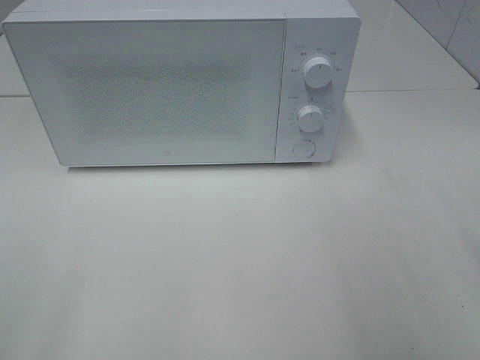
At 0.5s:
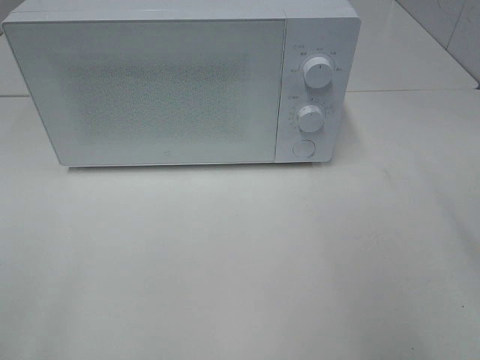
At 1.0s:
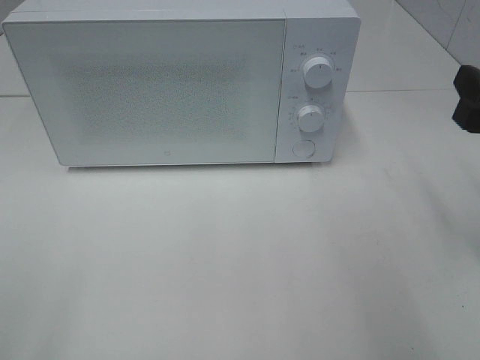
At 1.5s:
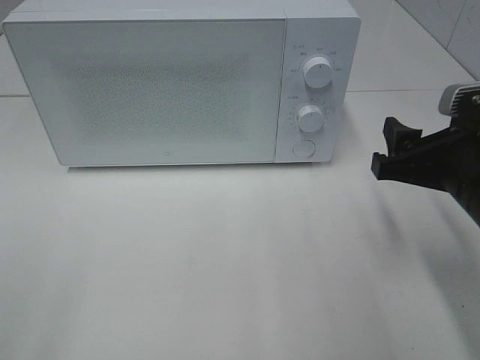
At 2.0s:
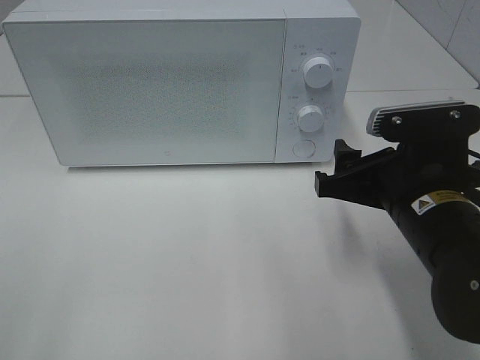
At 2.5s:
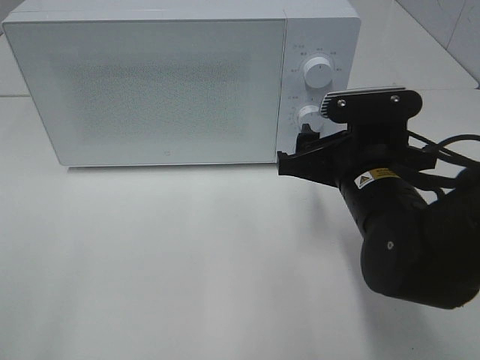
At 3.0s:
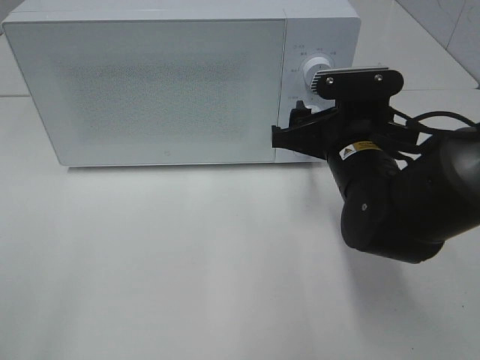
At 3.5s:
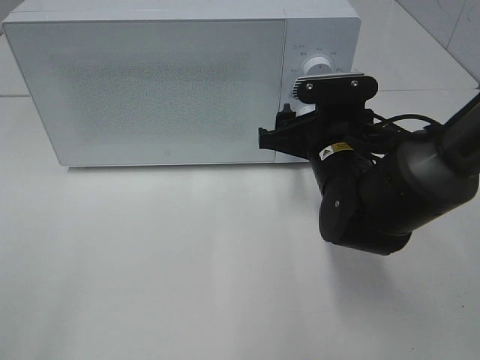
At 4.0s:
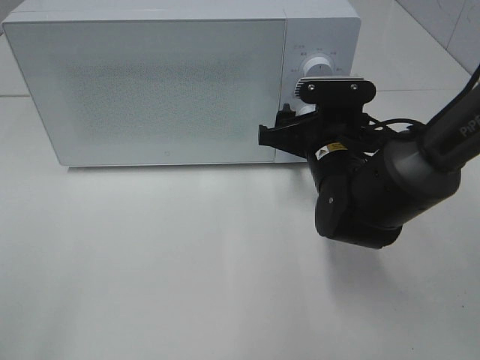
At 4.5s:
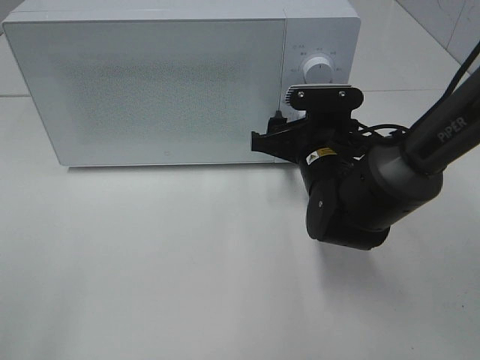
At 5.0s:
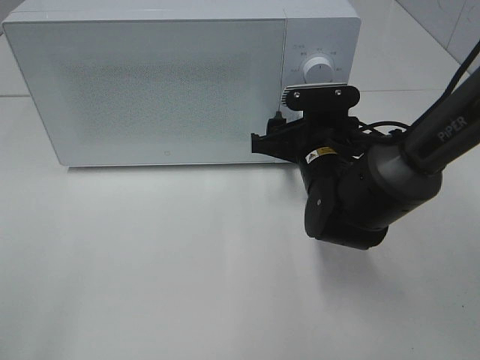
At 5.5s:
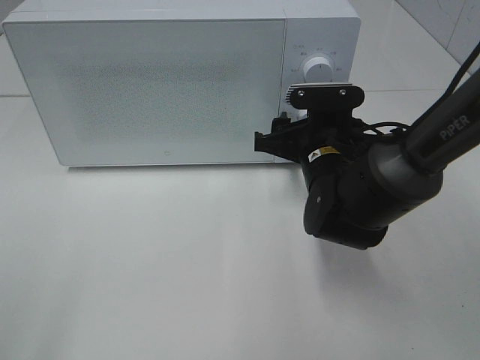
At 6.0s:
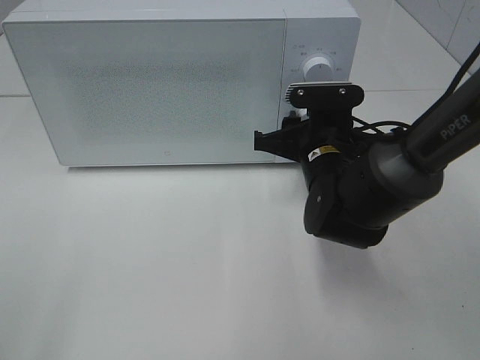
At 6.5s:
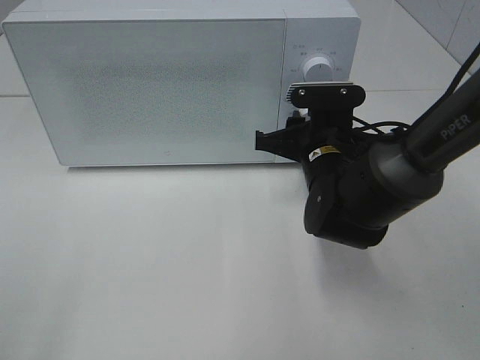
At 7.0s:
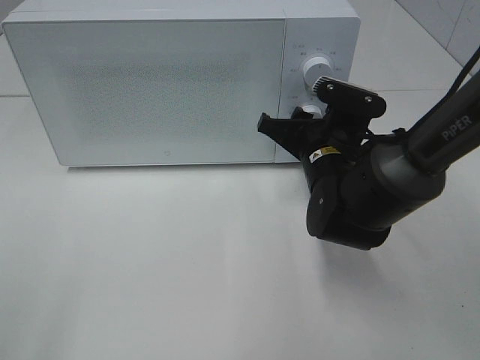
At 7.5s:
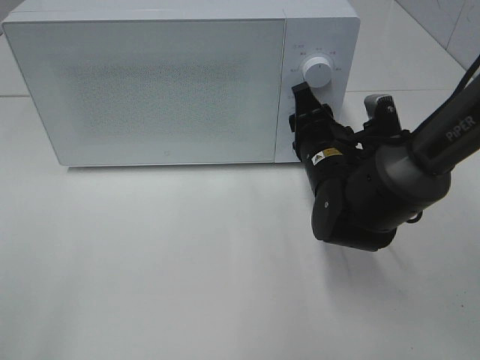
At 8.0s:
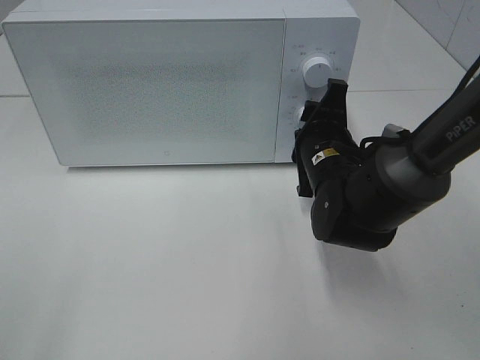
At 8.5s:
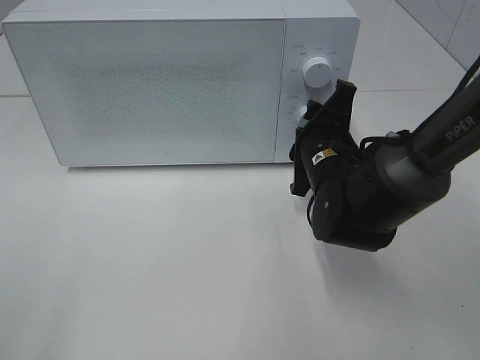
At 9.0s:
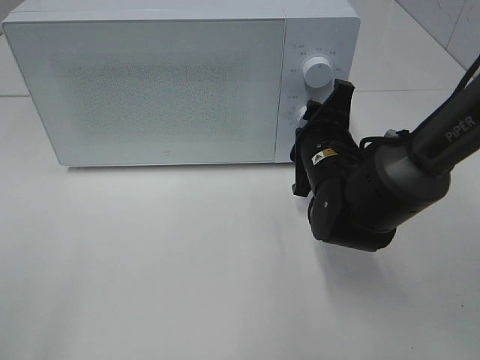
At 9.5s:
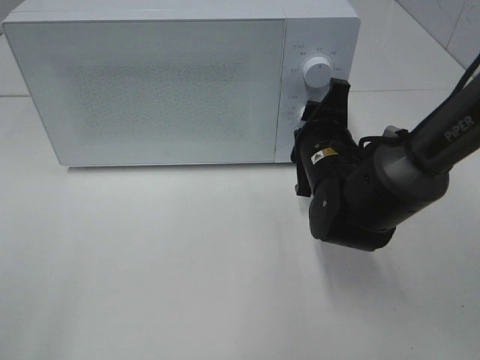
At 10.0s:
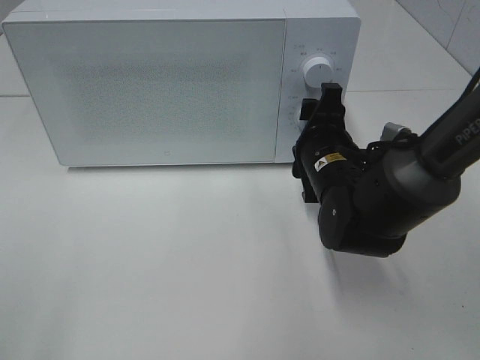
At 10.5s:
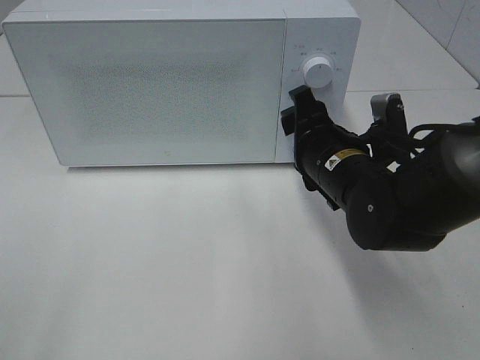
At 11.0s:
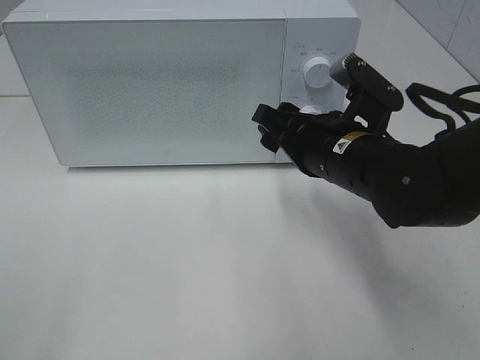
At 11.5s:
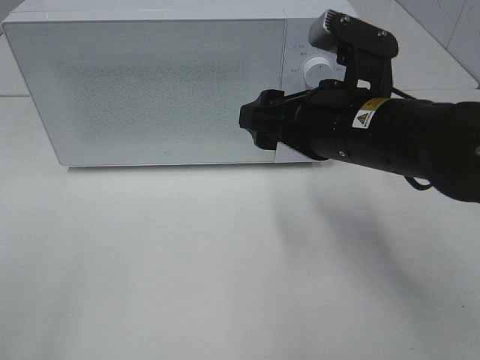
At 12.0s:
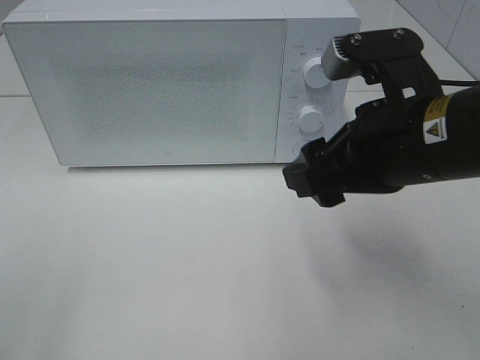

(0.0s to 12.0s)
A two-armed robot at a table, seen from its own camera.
Task of the whole recording: Heat the burger.
Step, 0.0s - 9.5s: Right hand: twist timer button.
0.0s - 2.0s: The right gripper moves to the left, downward and forward, approximately 20 cm.
2.0s - 4.0s: The right gripper goes some 10 cm forward.
4.0s - 6.0s: The right gripper closes.
8.0s - 10.0s: There are only small adjustments of the grippers.
10.0s - 12.0s: The right gripper moves upward and backward, roughly 15 cm.

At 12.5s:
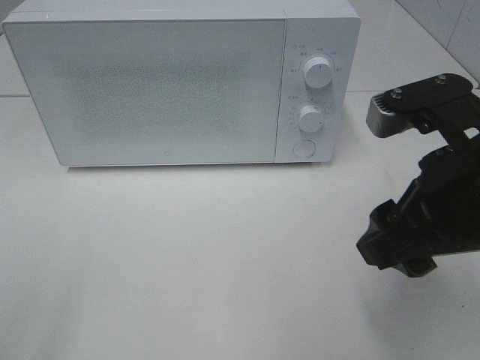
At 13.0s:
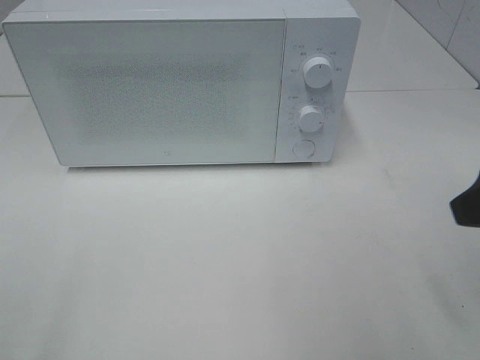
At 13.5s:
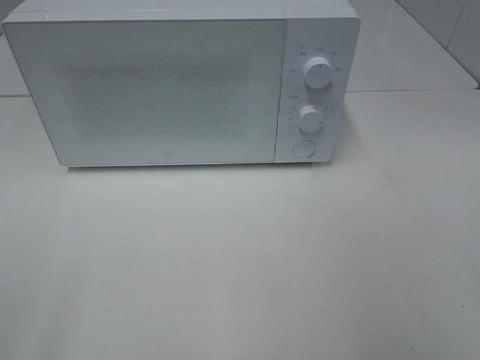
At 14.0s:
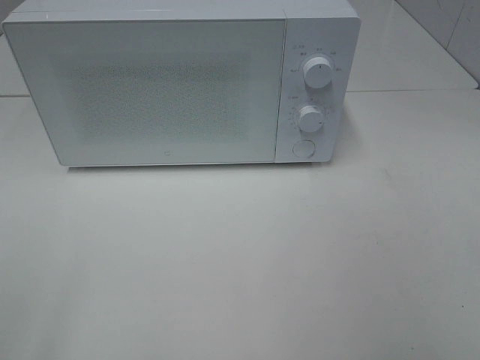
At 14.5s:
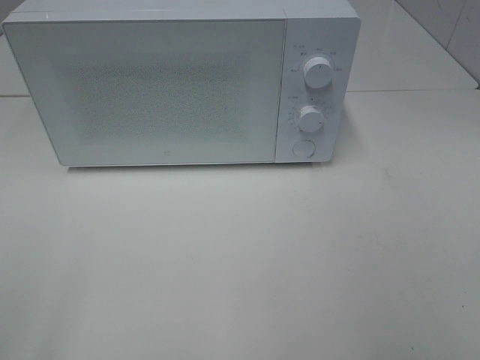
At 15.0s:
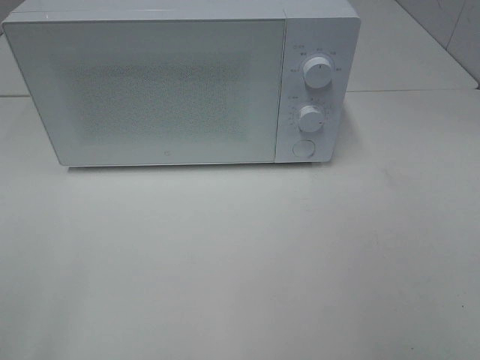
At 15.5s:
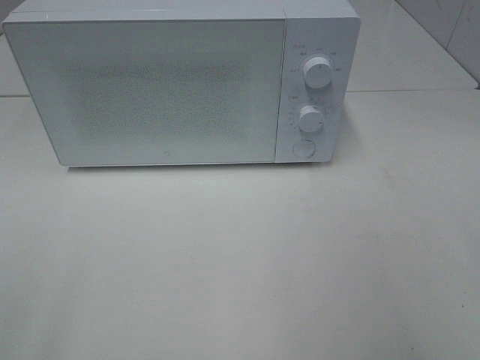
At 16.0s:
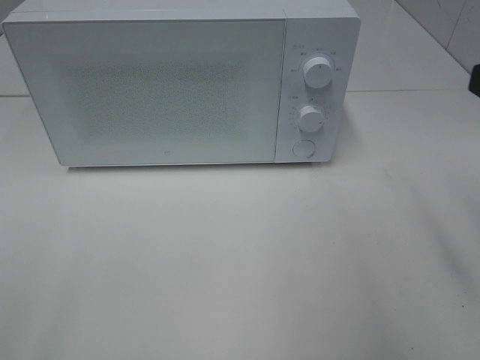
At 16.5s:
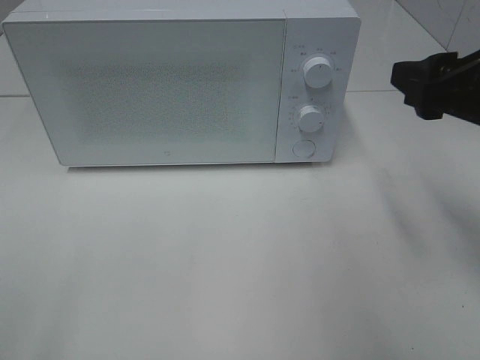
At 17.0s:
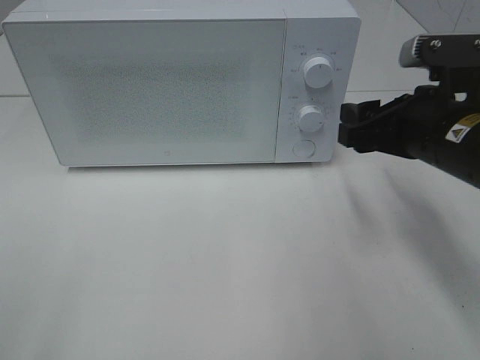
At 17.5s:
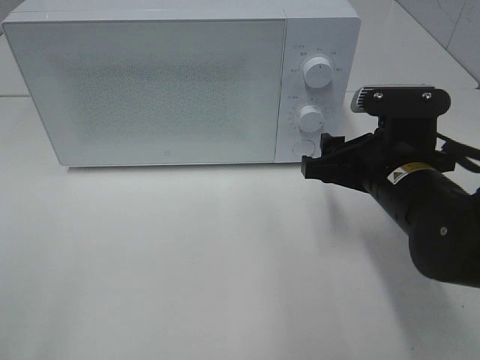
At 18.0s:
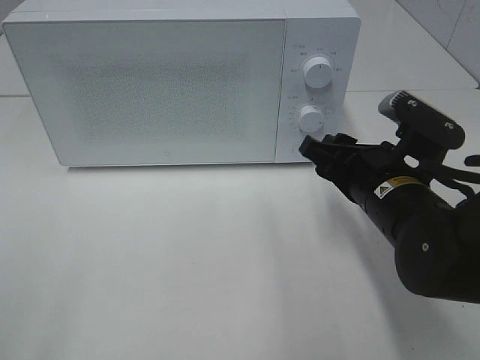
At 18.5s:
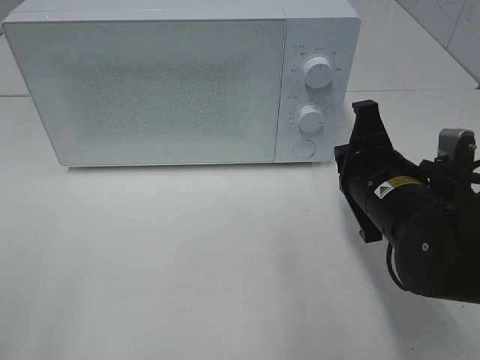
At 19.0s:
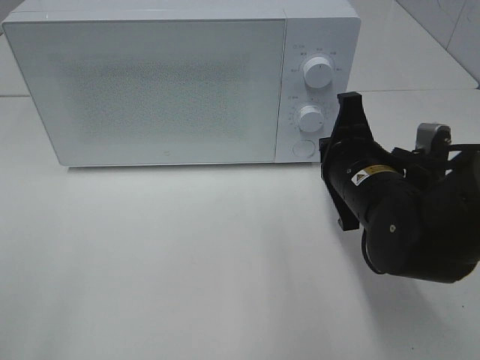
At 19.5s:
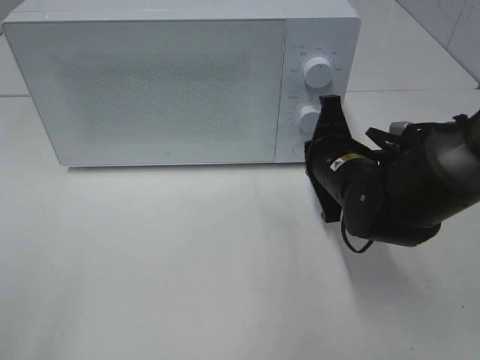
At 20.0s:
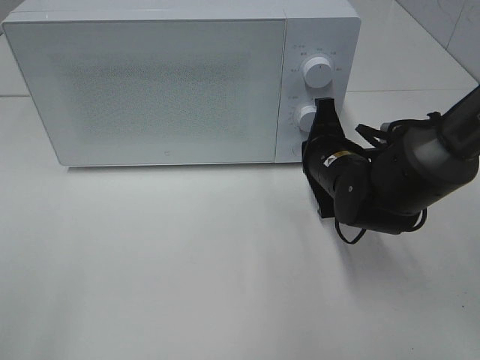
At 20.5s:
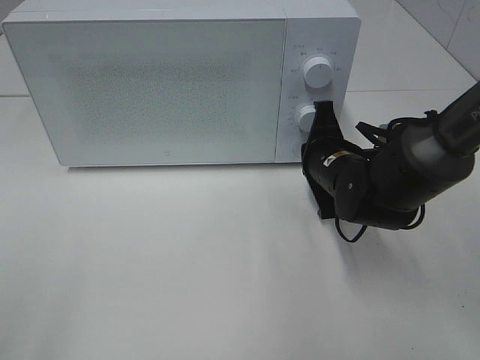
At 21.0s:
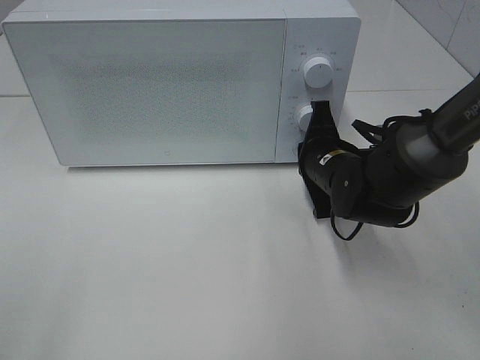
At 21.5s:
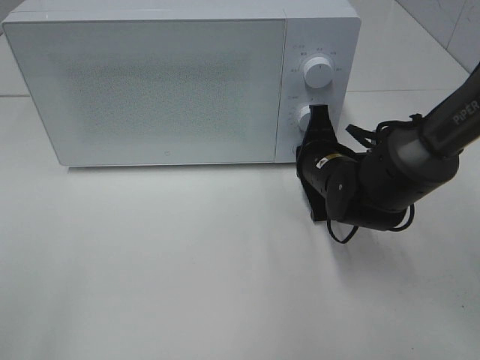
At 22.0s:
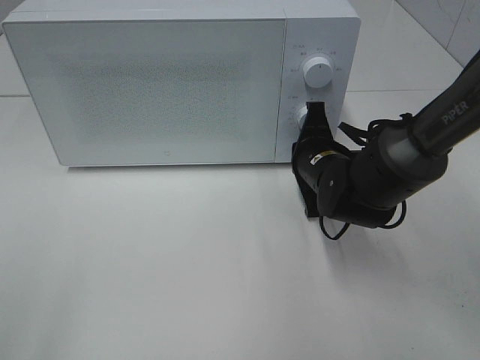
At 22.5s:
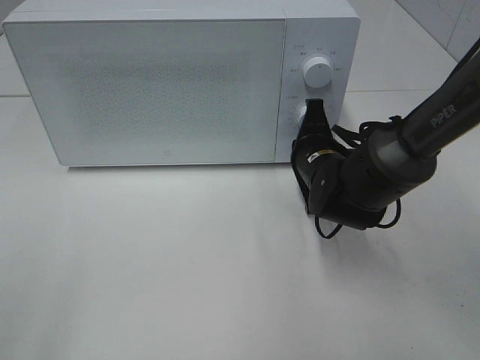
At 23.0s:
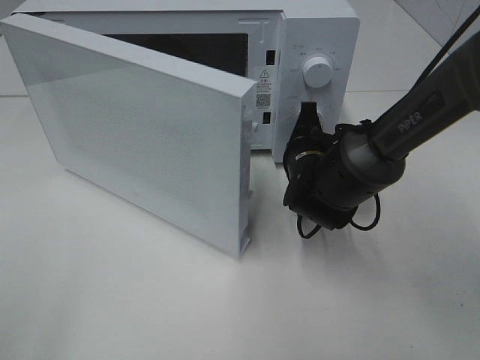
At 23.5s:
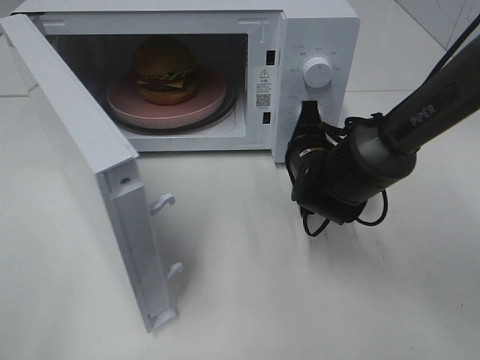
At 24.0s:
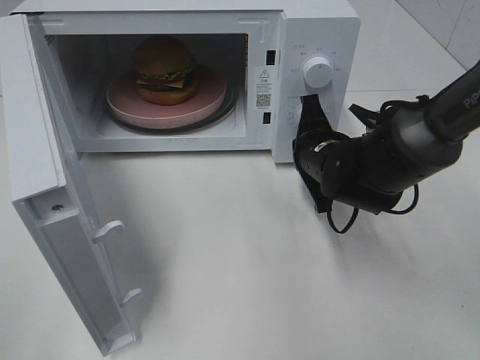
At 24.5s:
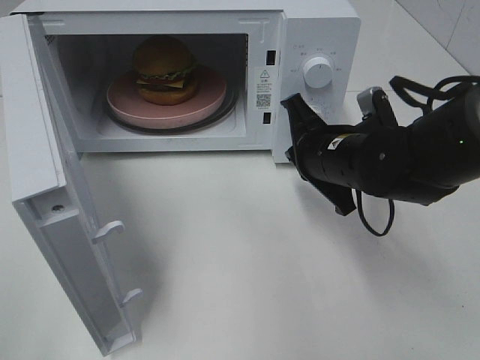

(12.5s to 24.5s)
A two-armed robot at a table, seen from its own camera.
Task of the whole recording: Heat the burger.
Step, 12.5s - 24.0s: Right hand: press the switch.
12.5s - 14.5s: The right gripper is displaced backward and to the right by about 20 cm.
14.5s - 16.5s: The right gripper heads forward, covering about 20 cm.
16.5s - 18.5s: The right gripper moves downward and to the left, some 15 cm, and closes.
18.5s - 20.5s: The right gripper goes roughly 10 cm forward.
20.5s - 22.5s: The grippers make only small movements.
22.5s - 24.5s: The right gripper is displaced upward by approximately 5 cm.

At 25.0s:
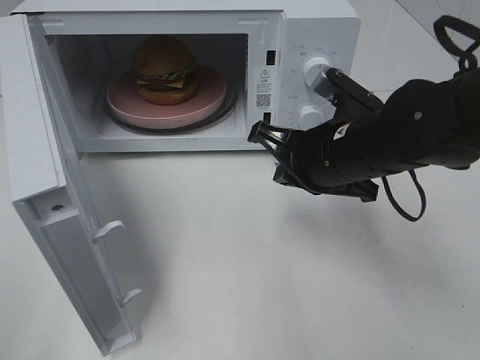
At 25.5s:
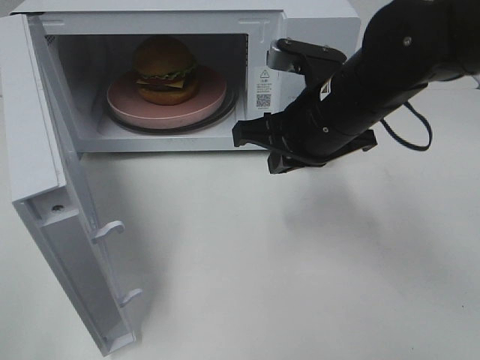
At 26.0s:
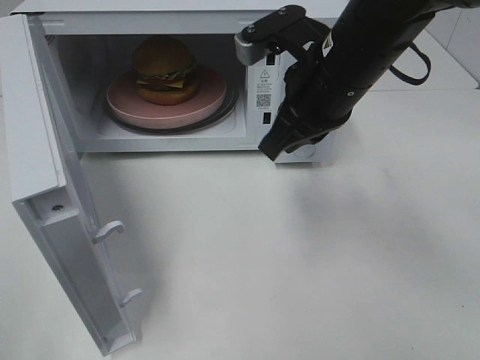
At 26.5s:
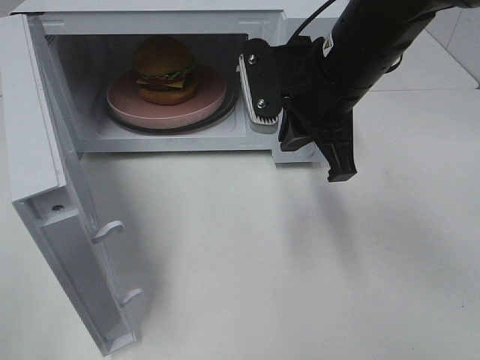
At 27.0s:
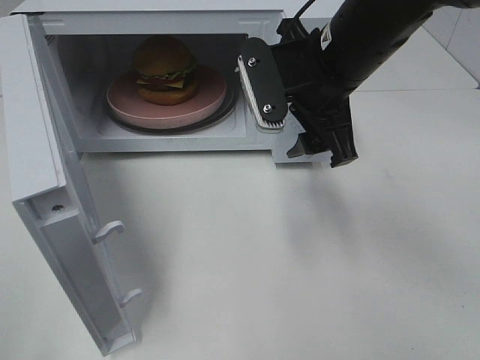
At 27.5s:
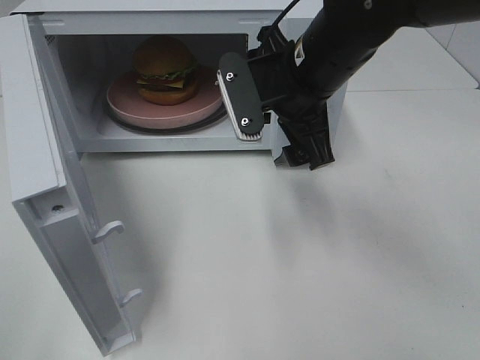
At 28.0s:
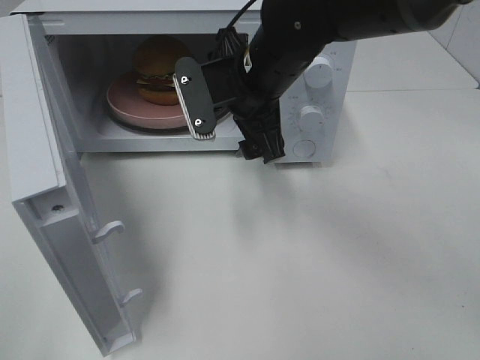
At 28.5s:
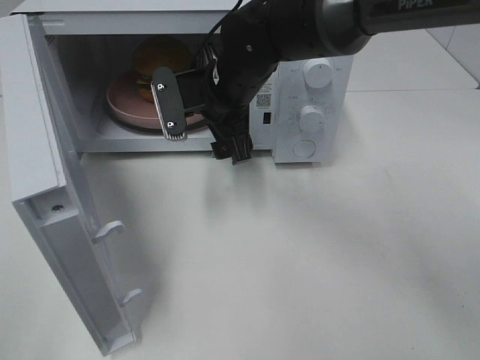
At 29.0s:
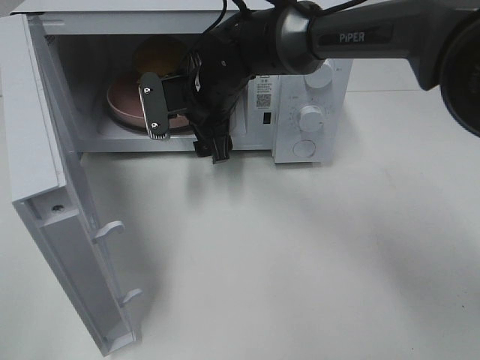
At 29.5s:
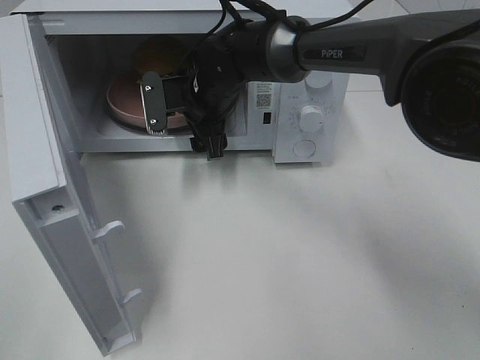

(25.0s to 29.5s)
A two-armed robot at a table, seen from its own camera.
Task of the whole recording: Heat the burger.
25.0s - 27.0s: The right gripper shifts some 10 cm upward, and opens up.
27.0s - 29.5s: The right gripper shifts some 20 cm to the left, forward and downward.
